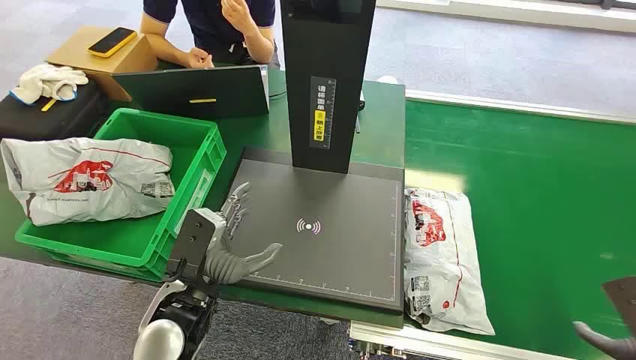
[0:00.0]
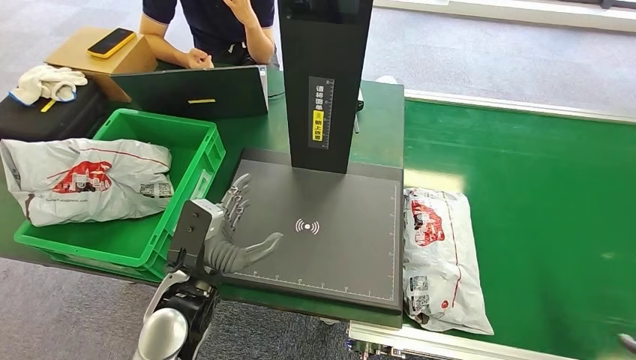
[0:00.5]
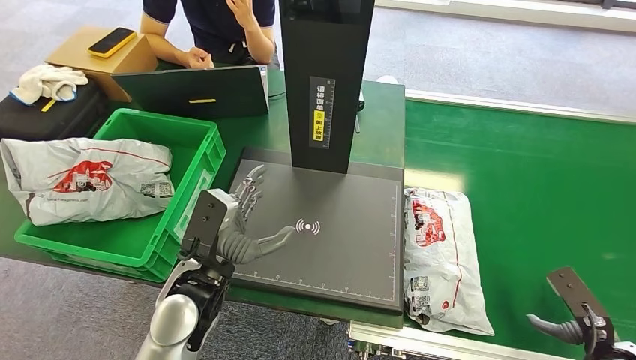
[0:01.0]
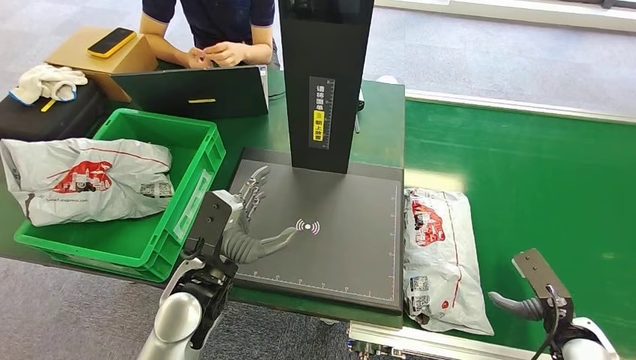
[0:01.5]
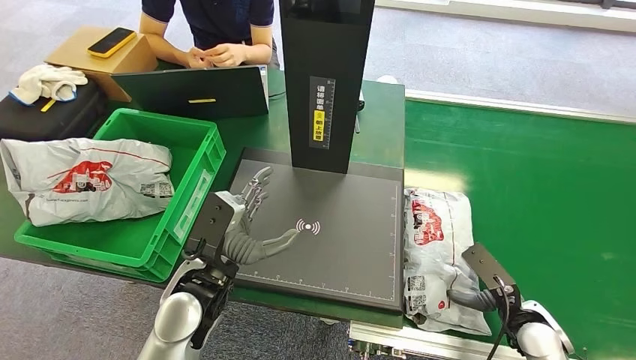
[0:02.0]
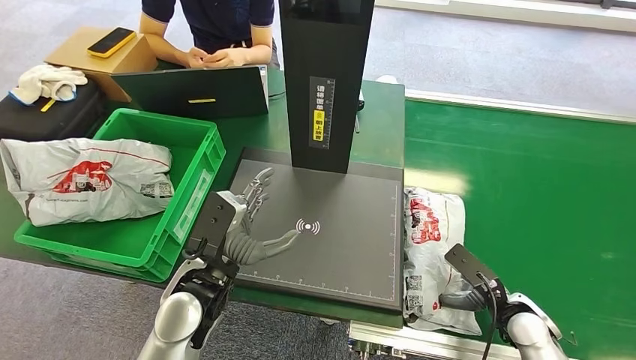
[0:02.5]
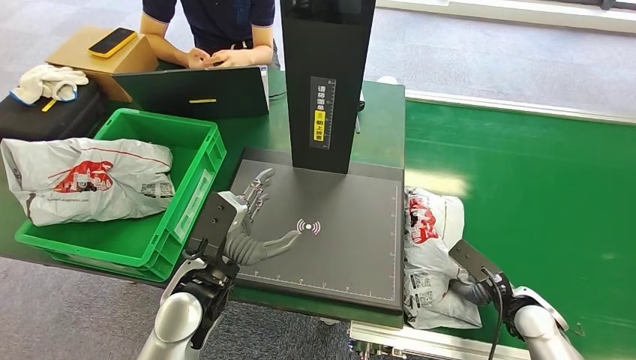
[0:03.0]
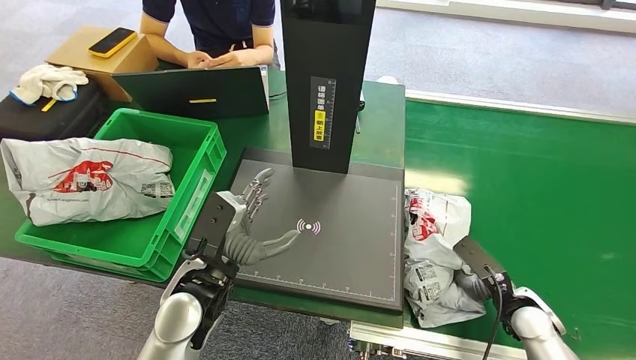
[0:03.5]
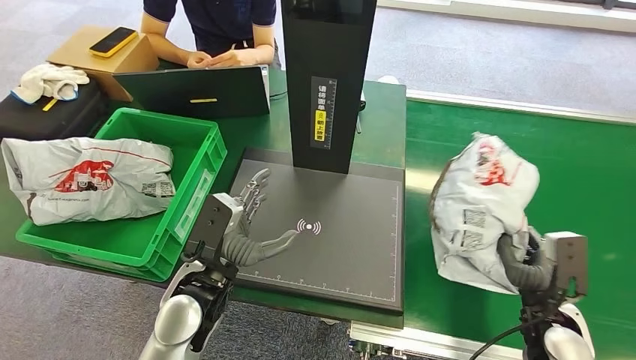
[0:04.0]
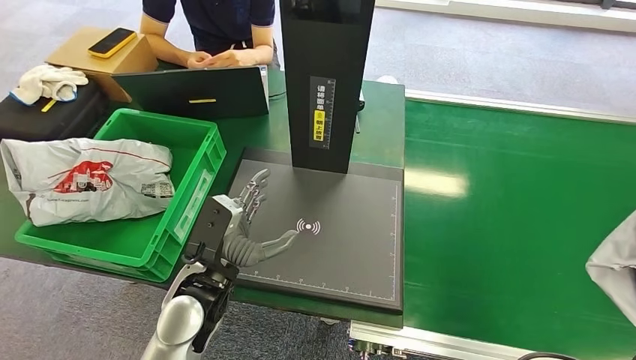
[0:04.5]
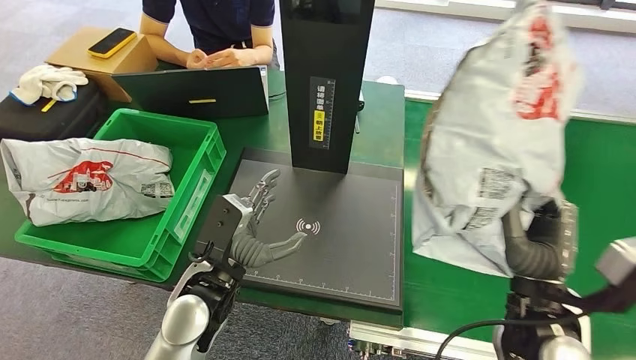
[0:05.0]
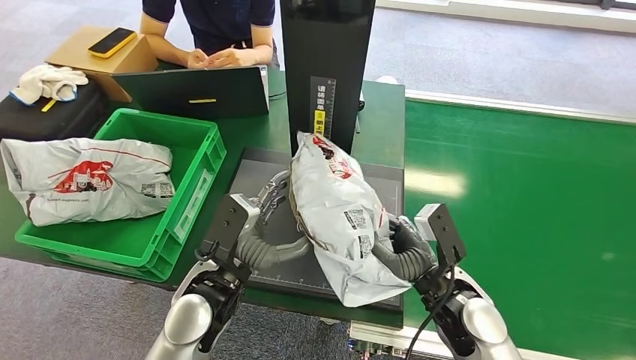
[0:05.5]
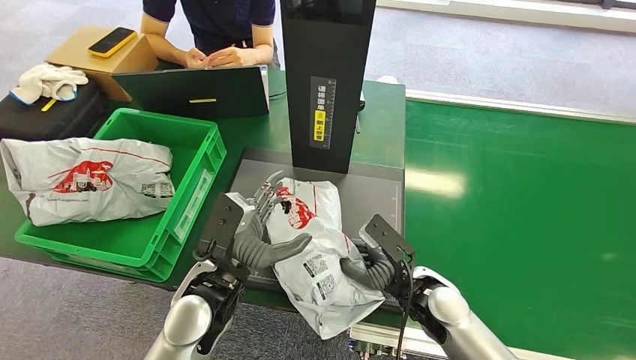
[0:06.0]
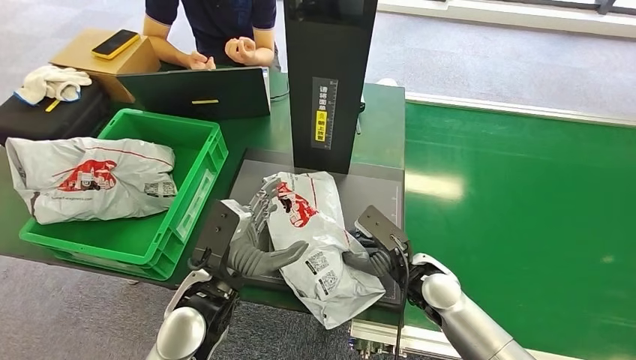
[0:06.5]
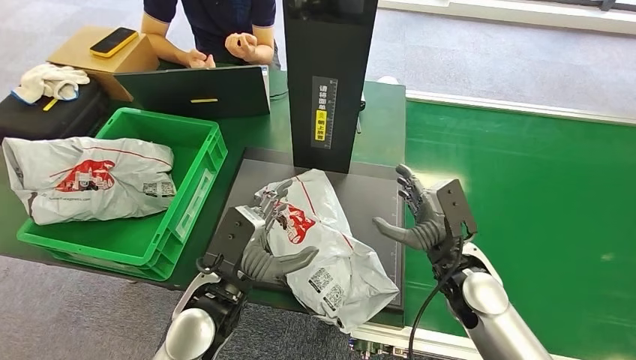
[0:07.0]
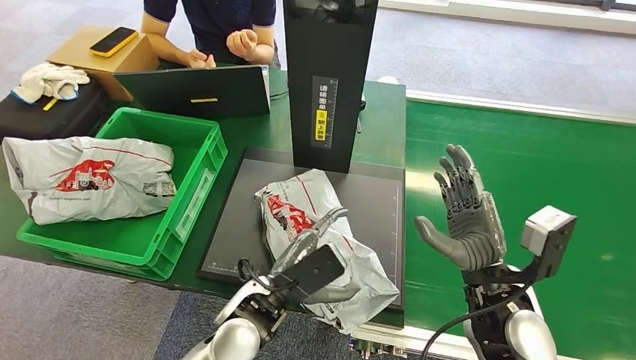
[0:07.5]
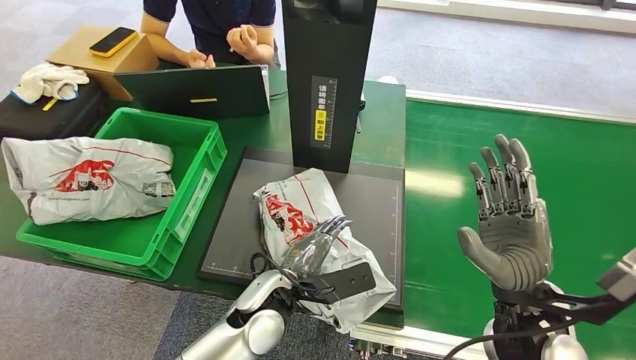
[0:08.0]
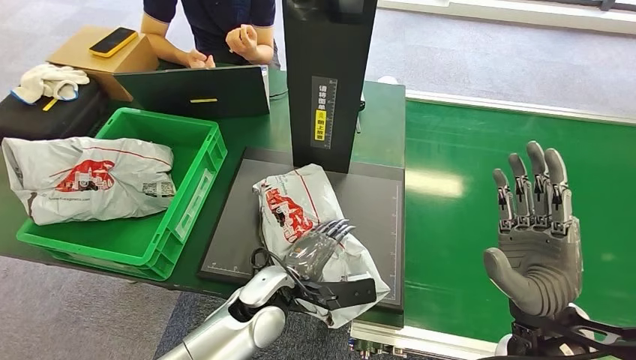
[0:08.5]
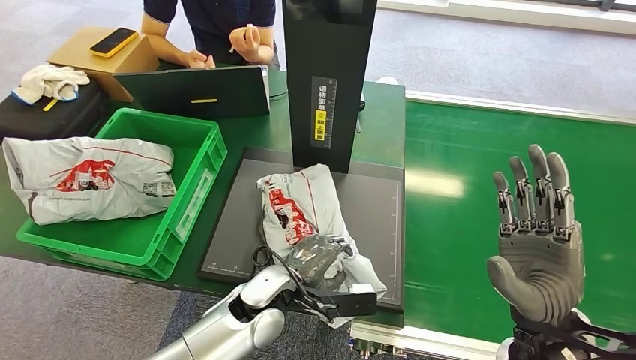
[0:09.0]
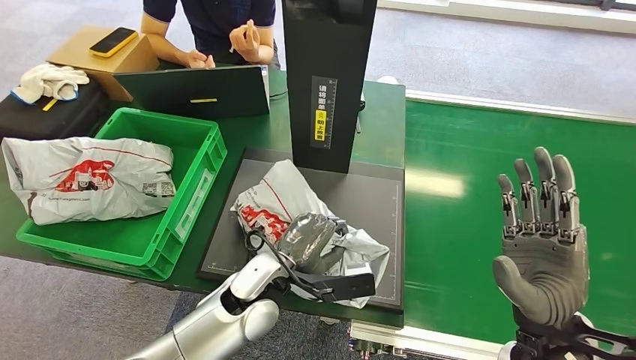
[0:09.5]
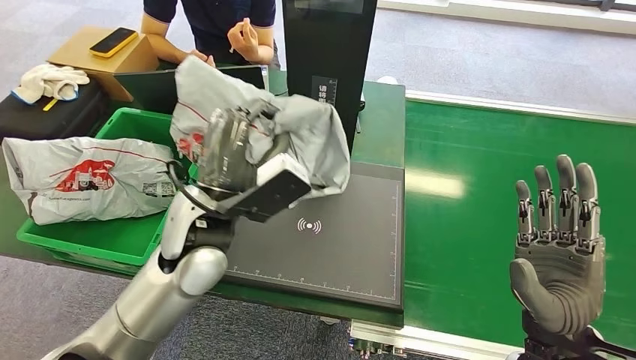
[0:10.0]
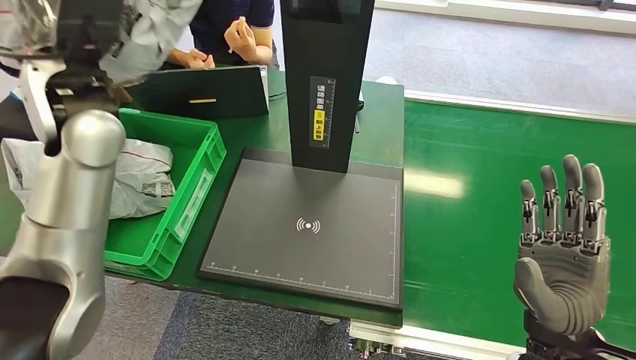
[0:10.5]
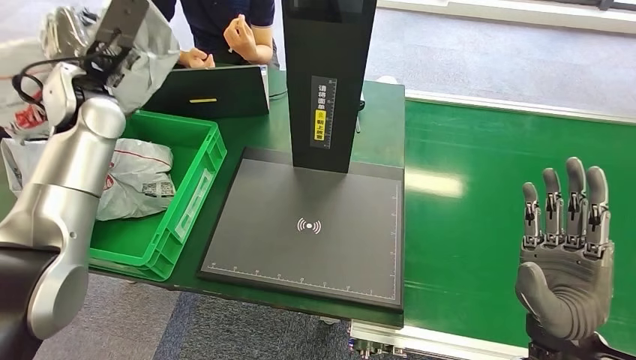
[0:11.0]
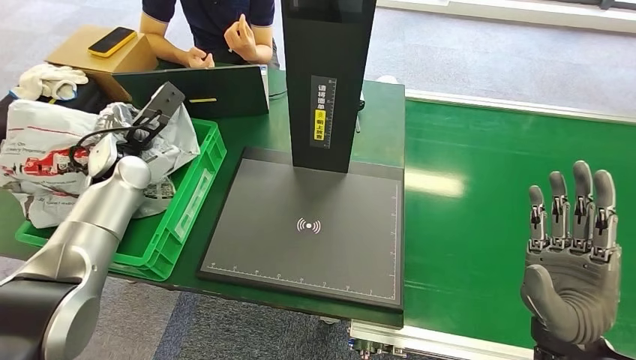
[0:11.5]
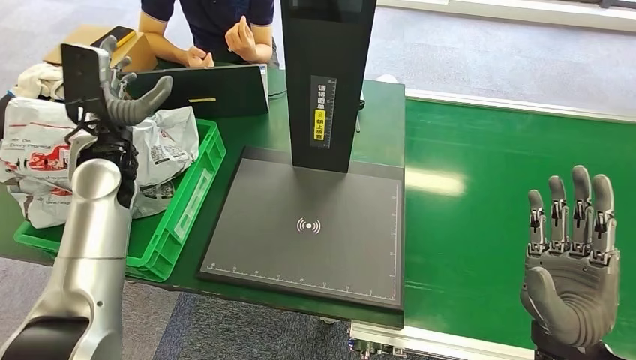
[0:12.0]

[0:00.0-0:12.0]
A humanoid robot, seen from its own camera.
Task of the whole recording: Weigh the package on the weighing device and place it in the left basket.
Step, 0:00.0 to 0:05.0: Pick up the package from the conveyor belt.
Step, 0:05.5 to 0:07.0: Place the package onto the inbound machine.
Step, 0:07.5 to 0:10.0: Pick up the package from the inbound machine.
Step, 0:10.5 to 0:12.0: Place the package into the parcel locker.

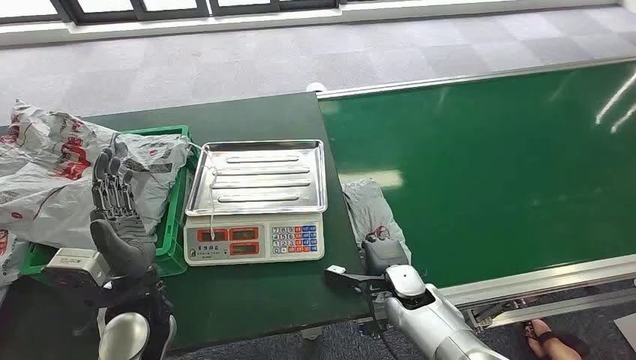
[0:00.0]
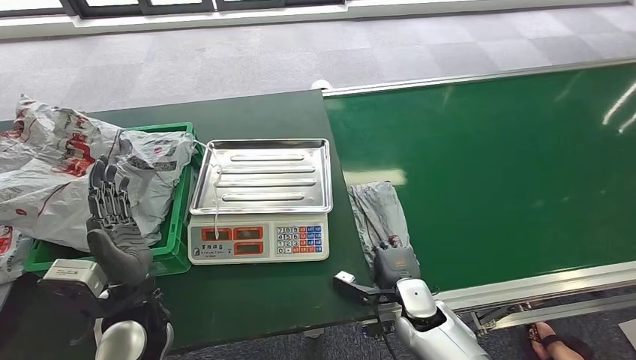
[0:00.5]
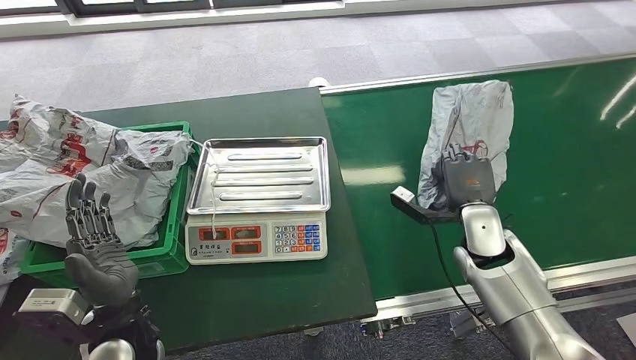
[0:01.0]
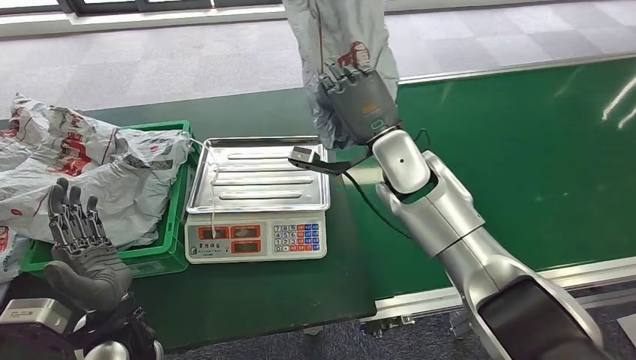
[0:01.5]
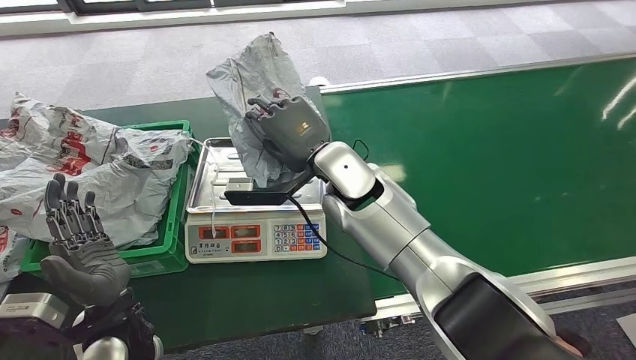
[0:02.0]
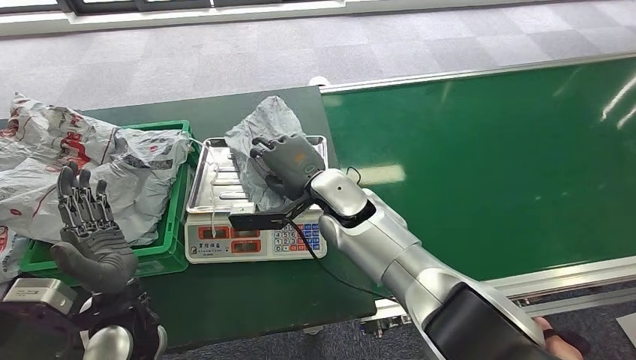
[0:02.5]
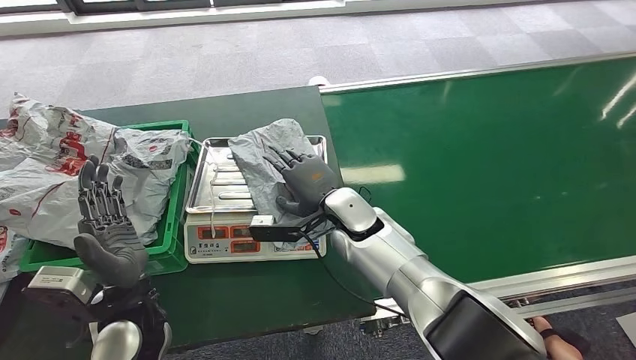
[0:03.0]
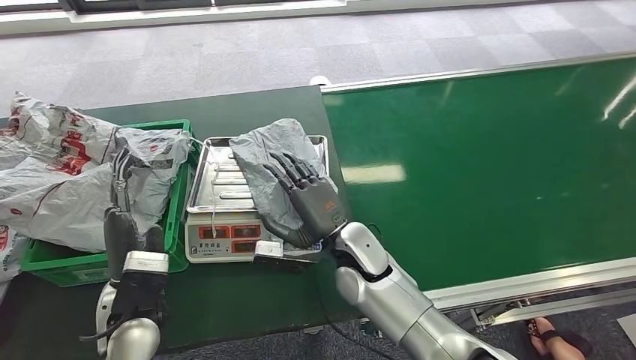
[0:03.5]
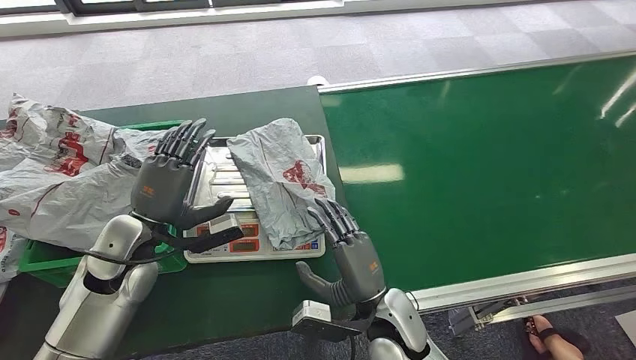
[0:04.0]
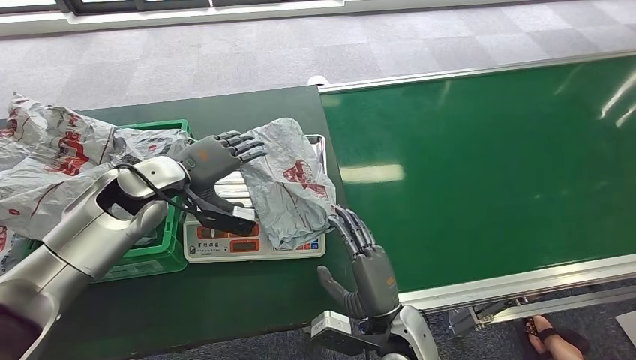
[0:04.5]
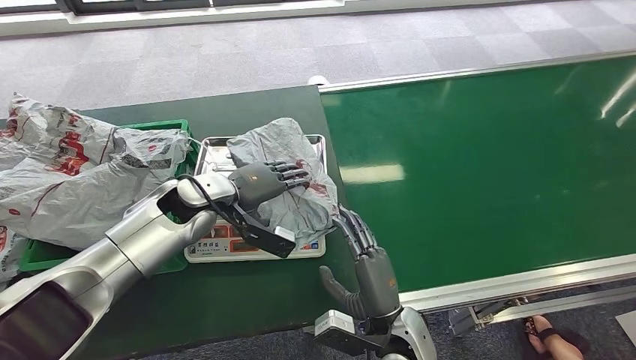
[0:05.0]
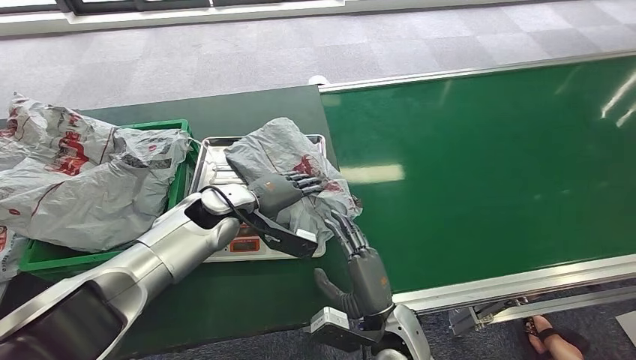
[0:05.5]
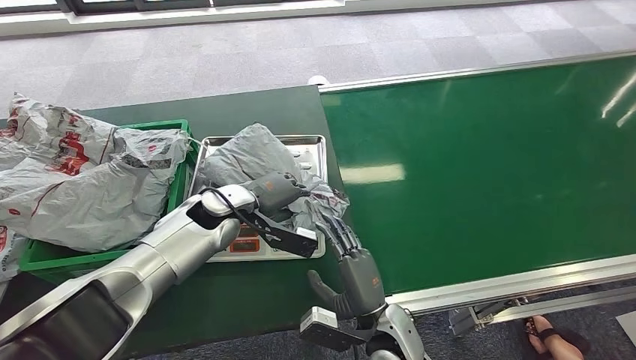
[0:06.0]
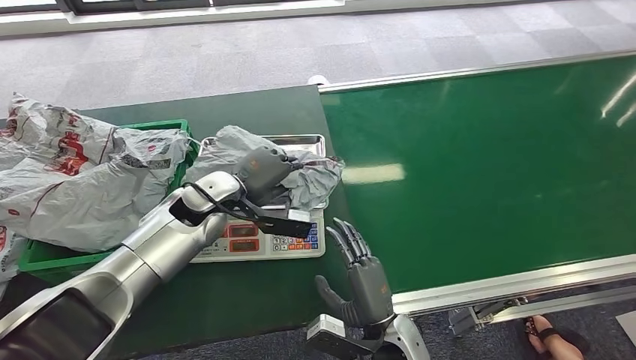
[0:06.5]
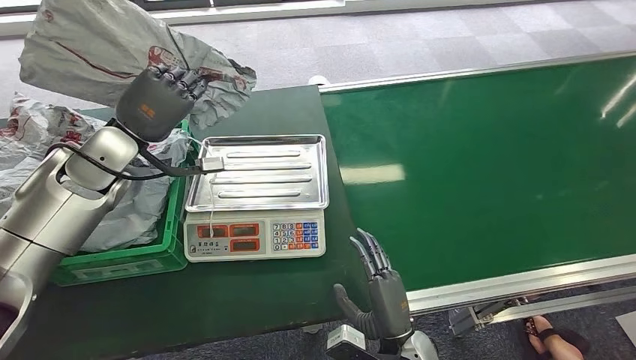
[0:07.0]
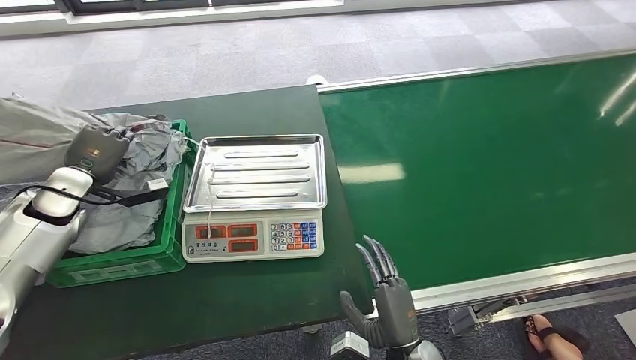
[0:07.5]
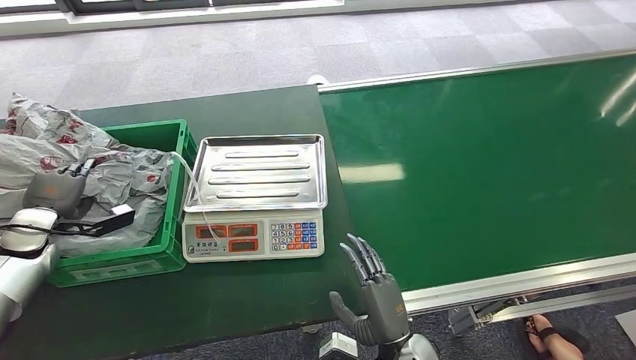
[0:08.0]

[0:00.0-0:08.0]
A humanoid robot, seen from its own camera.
Task of the whole recording: Weigh the package on the weighing device and place it in the left basket.
Step, 0:00.0 to 0:01.5: Pick up the package from the conveyor belt.
Step, 0:02.0 to 0:04.0: Place the package onto the inbound machine.
Step, 0:04.5 to 0:07.0: Pick up the package from the inbound machine.
Step, 0:07.5 to 0:08.0: Place the package into the parcel locker.
0:04.0 to 0:06.0: The left hand is displaced to the right and forward by some 15 cm.
